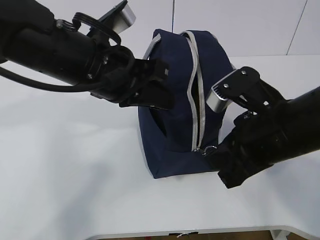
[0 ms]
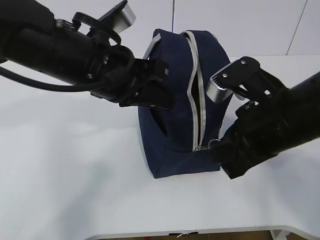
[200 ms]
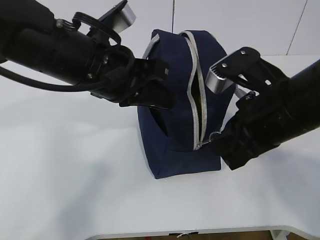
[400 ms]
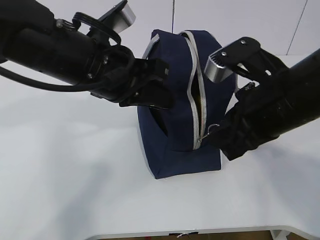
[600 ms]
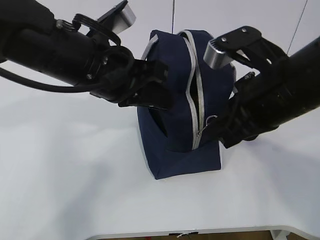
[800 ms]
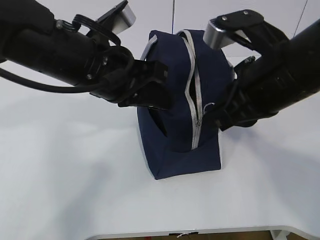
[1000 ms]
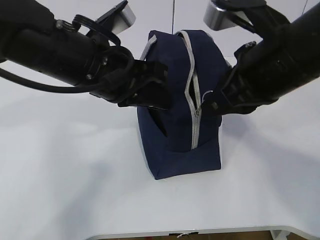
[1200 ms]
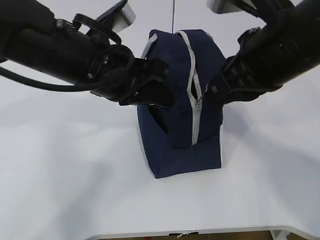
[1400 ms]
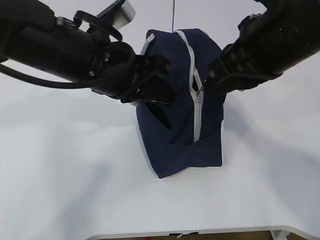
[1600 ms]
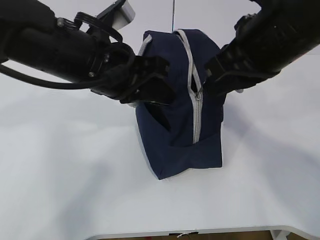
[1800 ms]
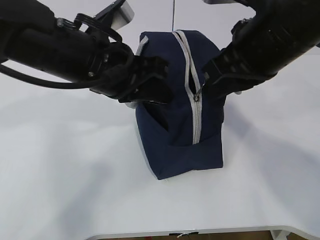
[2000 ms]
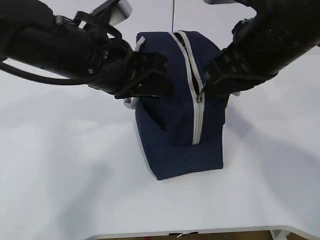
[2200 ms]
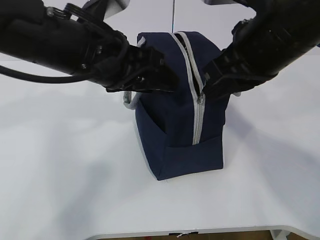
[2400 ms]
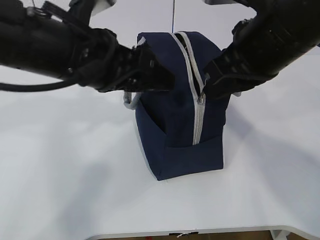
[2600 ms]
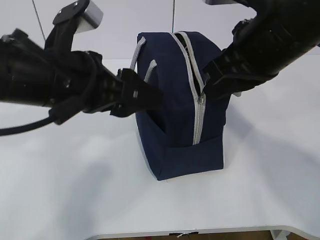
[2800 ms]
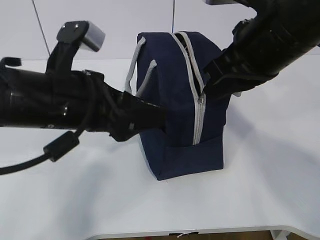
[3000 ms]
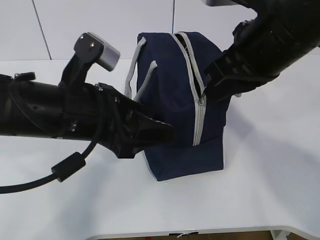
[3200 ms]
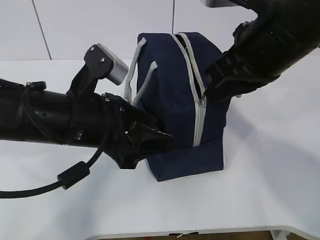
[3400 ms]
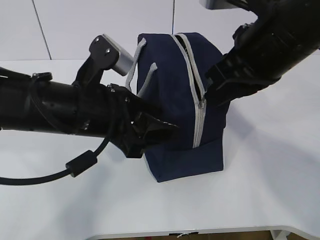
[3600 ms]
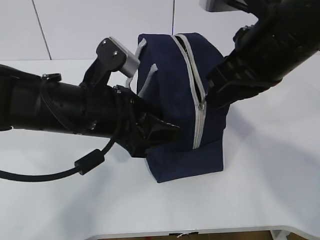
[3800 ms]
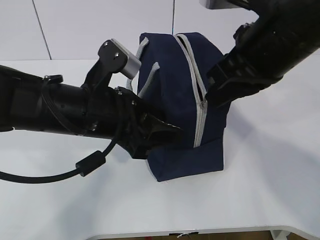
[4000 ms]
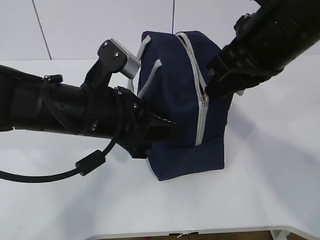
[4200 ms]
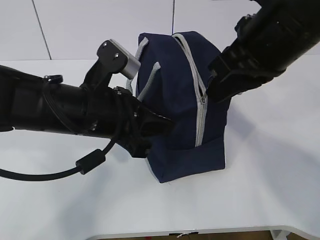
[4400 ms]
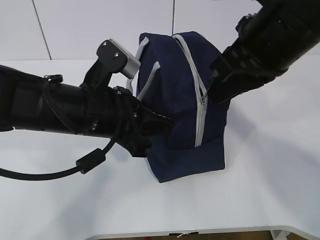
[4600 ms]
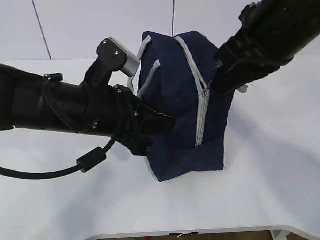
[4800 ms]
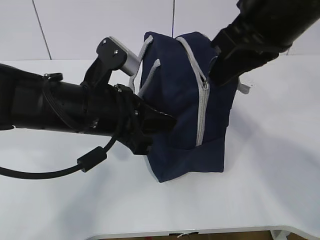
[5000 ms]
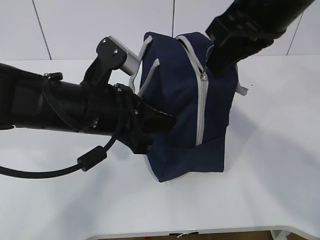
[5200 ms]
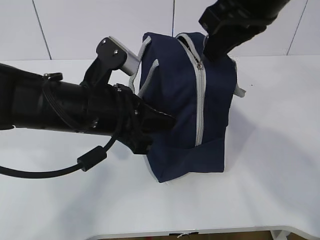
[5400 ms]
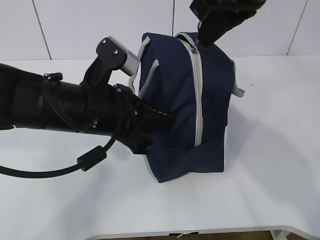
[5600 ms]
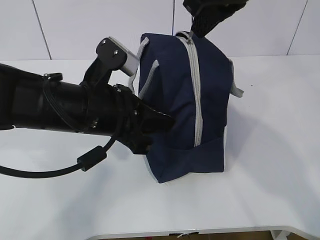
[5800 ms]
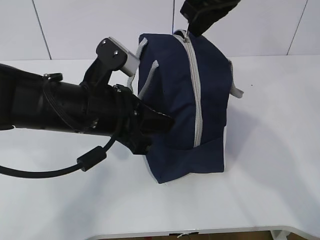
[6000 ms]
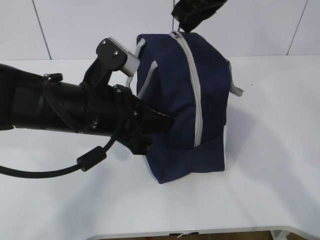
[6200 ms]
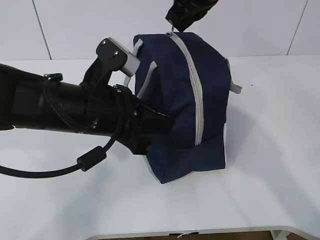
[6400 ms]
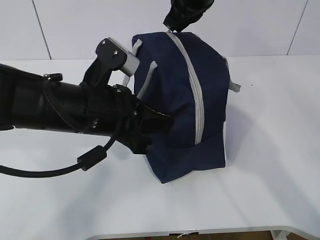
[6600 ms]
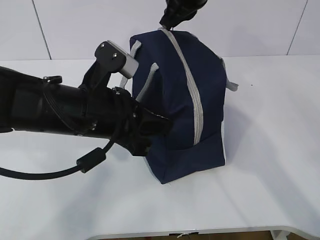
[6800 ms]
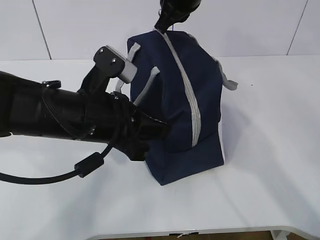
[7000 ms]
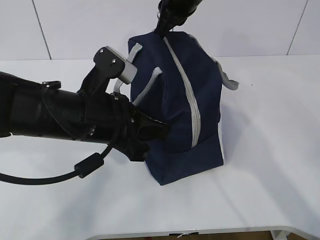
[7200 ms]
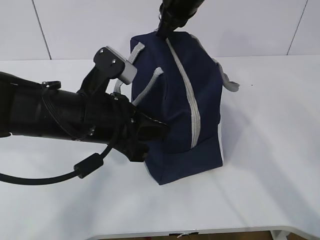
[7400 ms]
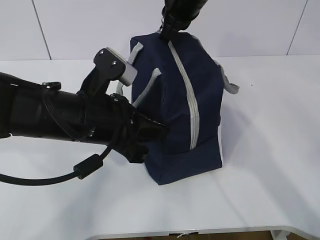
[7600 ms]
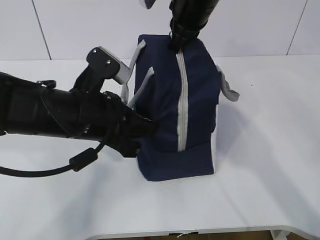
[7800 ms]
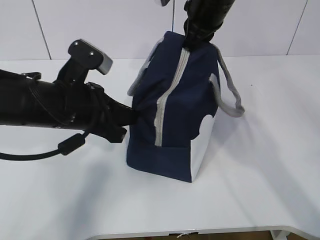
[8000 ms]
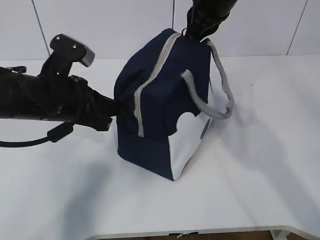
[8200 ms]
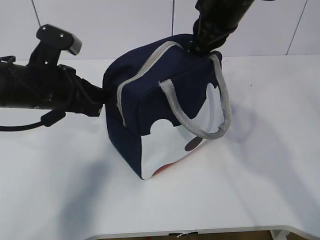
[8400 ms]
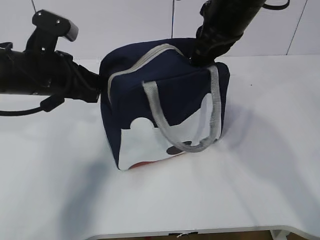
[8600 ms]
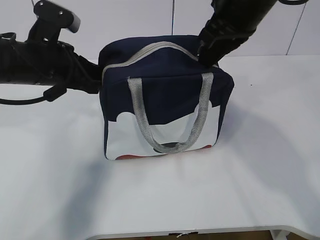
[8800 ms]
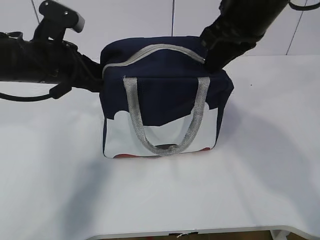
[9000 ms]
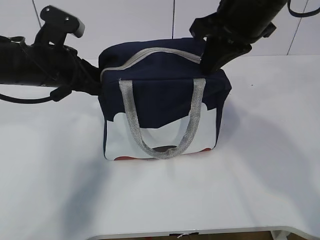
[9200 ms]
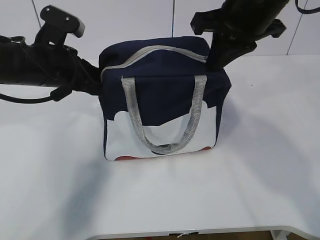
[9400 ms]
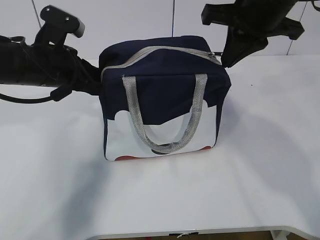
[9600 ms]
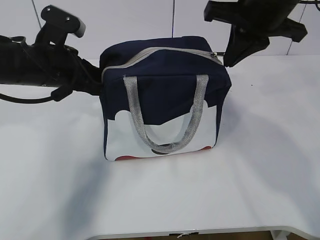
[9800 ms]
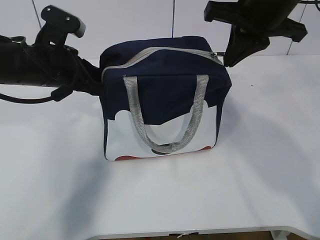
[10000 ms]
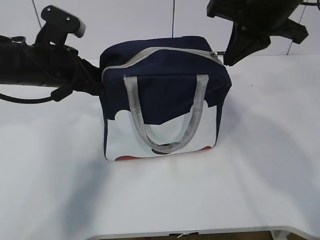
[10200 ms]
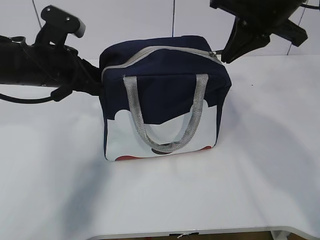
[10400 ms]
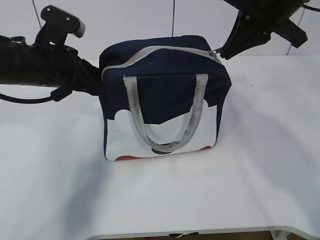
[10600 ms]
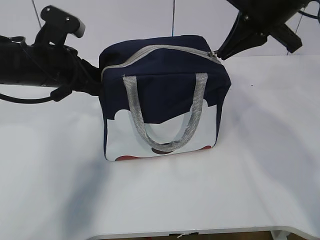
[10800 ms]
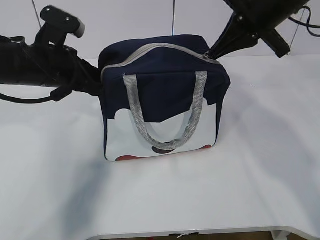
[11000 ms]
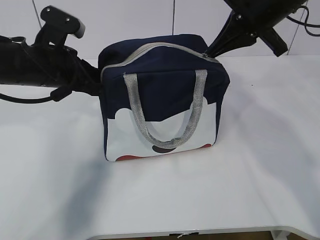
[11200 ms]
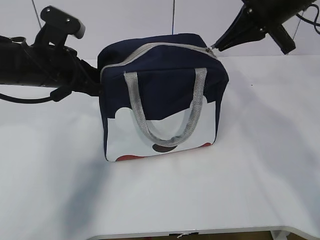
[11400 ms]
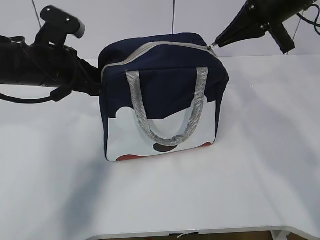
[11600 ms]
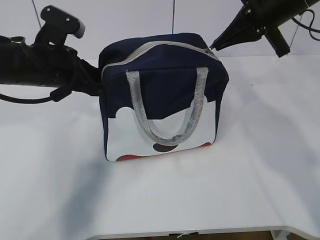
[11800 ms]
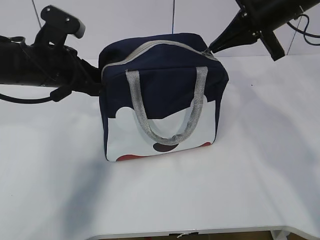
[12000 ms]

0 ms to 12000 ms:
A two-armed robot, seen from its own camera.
Step, 0 ms to 3800 ms: Pull the zipper with your right hand.
Step, 4000 ms to 4800 ms: Grab the lunch bag with your left hand.
0 ms to 1600 ms: The right gripper goes some 10 cm upward.
1600 ms to 3000 ms: The left gripper moves some 5 cm, and opens up.
3000 ms to 4400 ms: The left gripper closes its fingers.
4400 ms to 6000 ms: The right gripper travels forward by approximately 10 cm.
6000 ms to 7600 ms: The right gripper shifts approximately 10 cm forward and downward.
7600 ms to 9000 ms: The left gripper goes some 10 cm forward and to the left. The right gripper shifts roughly 10 cm backward and to the right.
10400 ms to 12000 ms: The right gripper moves about 5 cm.

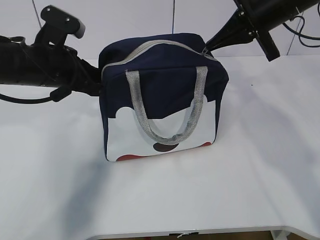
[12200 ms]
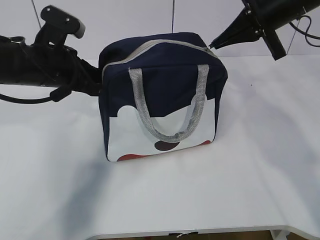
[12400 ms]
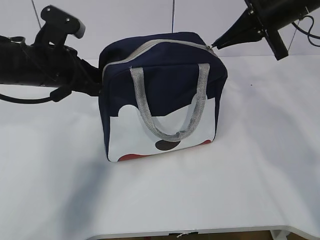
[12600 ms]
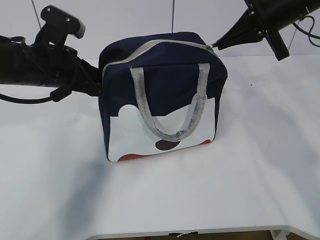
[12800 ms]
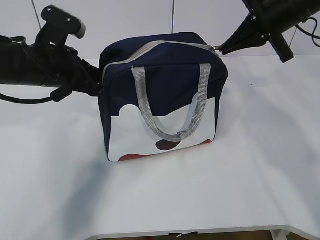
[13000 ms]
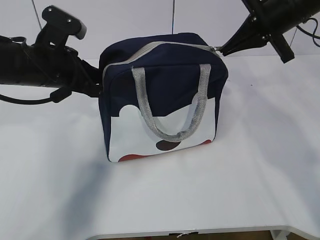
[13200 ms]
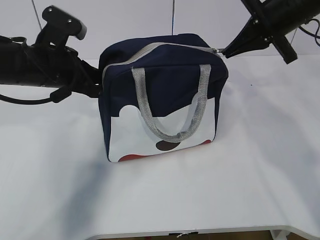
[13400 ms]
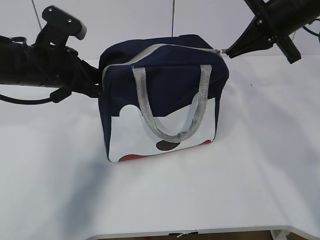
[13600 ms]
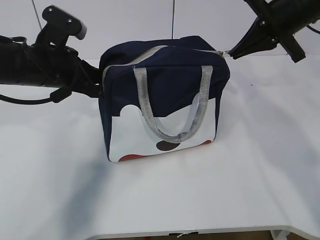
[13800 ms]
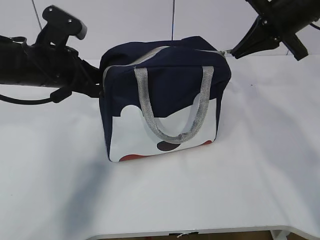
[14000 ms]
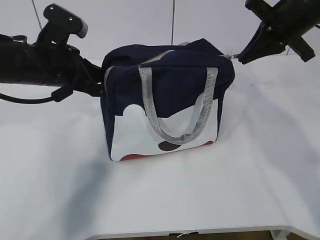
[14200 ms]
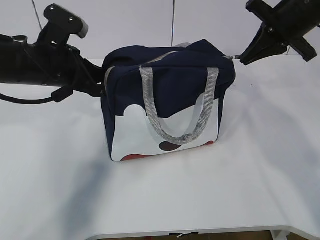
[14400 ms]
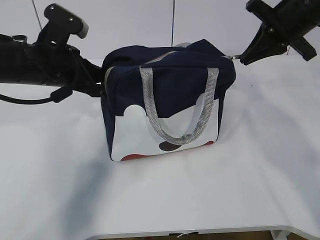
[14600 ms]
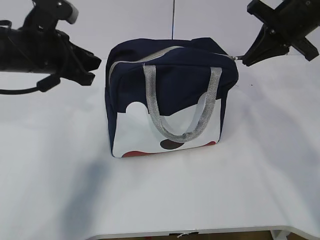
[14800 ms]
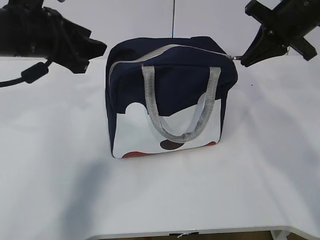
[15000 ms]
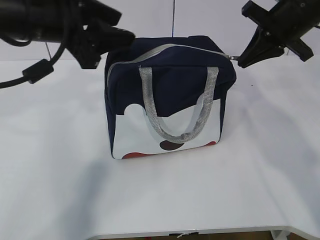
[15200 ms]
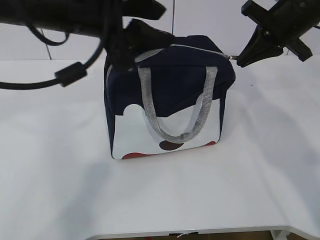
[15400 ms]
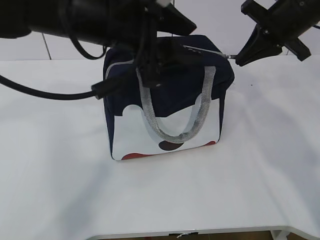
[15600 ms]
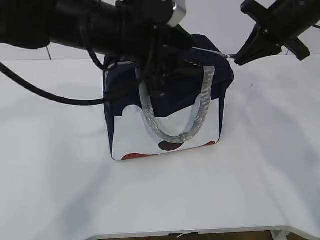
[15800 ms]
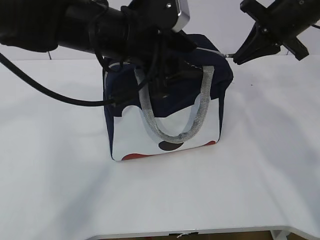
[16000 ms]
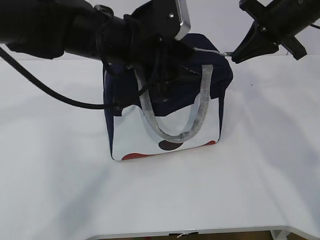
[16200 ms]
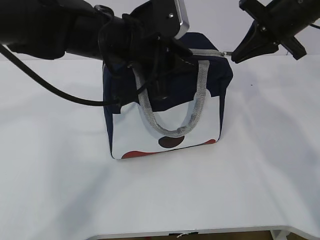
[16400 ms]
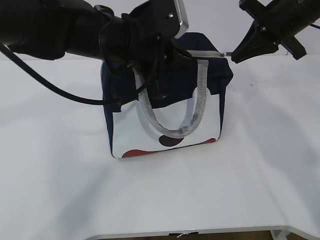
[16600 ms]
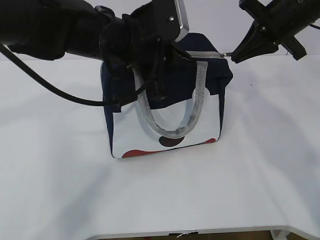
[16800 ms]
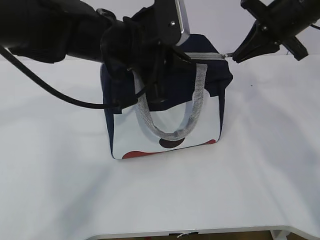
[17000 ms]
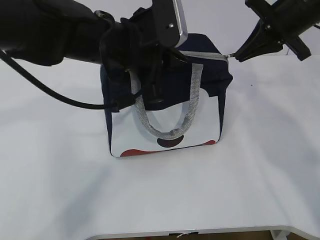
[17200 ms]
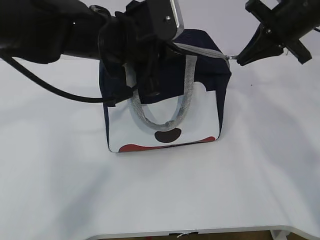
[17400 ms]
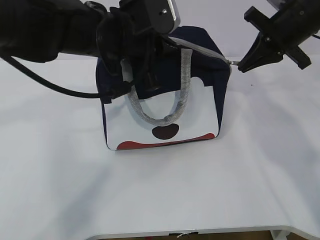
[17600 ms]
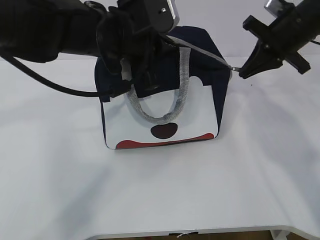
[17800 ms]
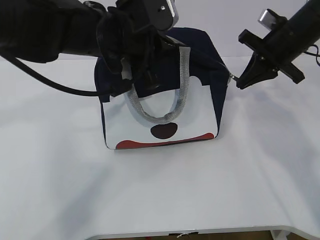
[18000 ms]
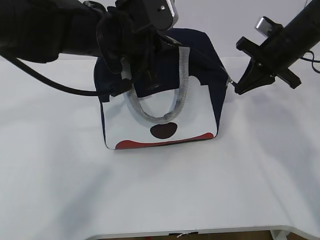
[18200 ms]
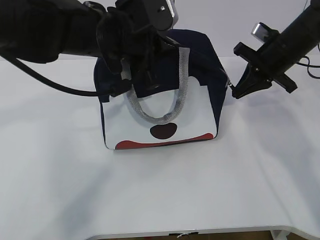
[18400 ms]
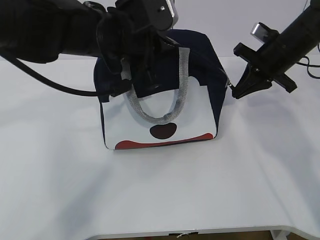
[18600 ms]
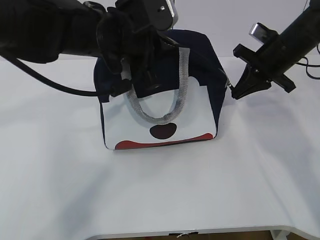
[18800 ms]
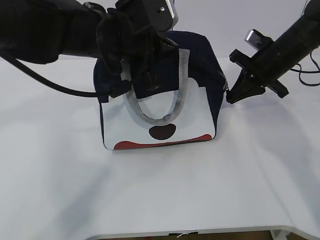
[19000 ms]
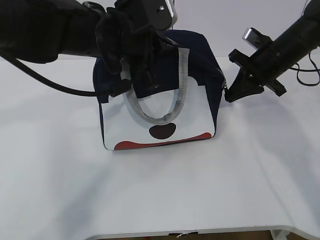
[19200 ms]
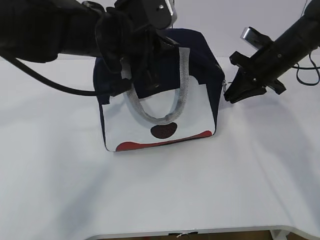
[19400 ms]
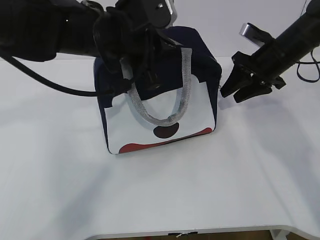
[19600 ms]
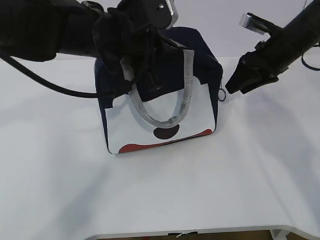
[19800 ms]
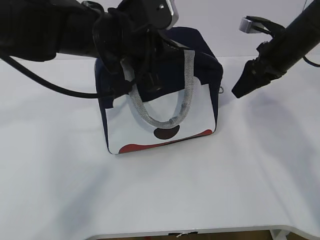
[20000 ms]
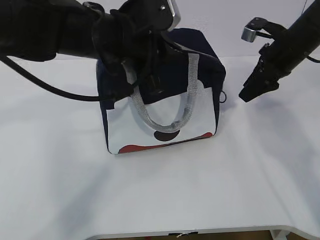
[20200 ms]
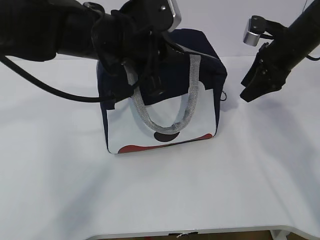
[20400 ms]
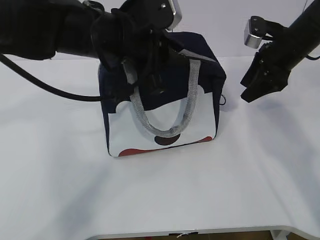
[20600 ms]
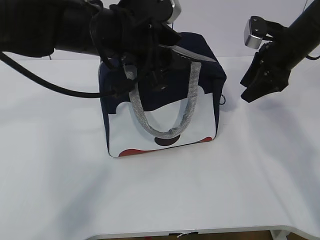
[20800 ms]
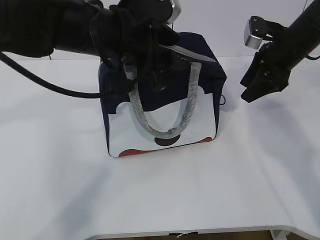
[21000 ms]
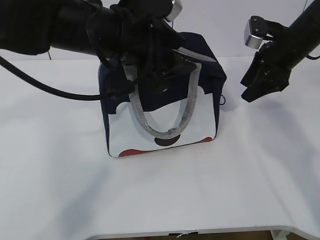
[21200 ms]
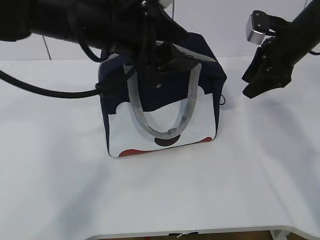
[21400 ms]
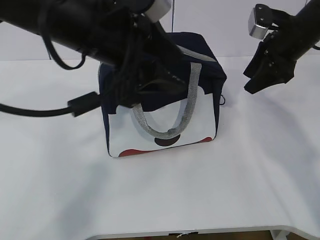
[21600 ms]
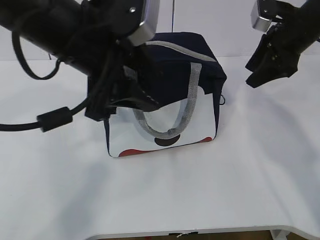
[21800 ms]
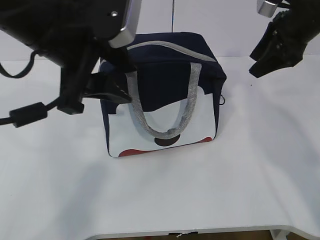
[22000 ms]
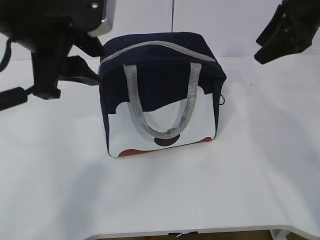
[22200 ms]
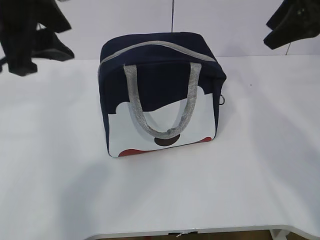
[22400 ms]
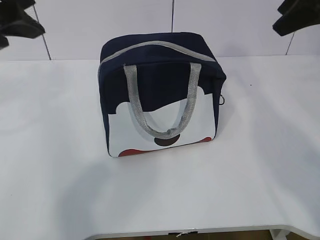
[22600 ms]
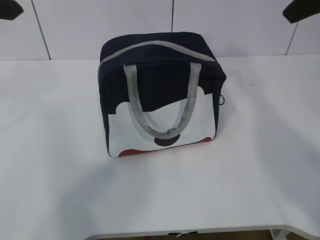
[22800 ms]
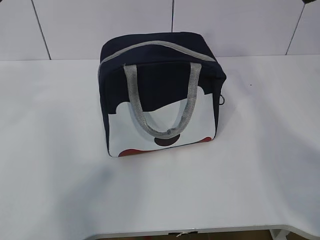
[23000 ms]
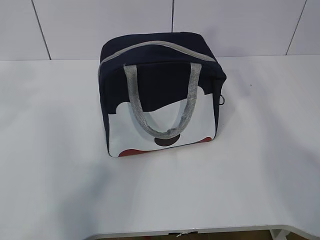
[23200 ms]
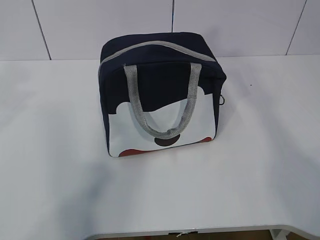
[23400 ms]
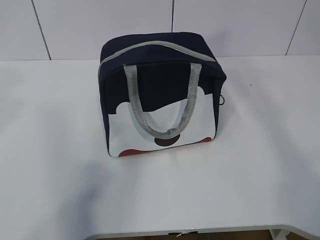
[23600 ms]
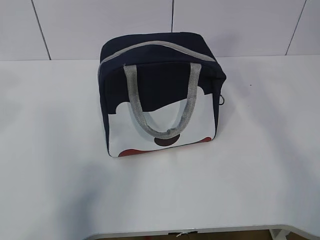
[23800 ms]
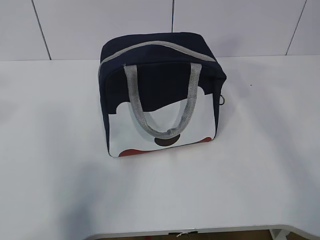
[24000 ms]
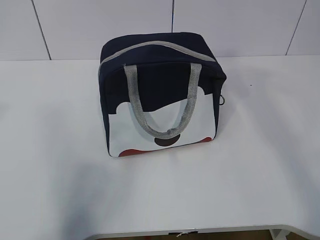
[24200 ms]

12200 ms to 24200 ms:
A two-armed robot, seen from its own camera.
12200 ms to 13800 ms: The grippers stay close to where they were, moving slightly.
13800 ms to 15200 ms: The left gripper travels upward by about 10 cm, and opens.
15200 ms to 16600 ms: The left gripper travels to the right by approximately 10 cm, and closes its fingers.
16600 ms to 18200 ms: The right gripper heads downward, covering roughly 5 cm.
18200 ms to 19800 ms: The right gripper opens.
19800 ms to 21200 ms: The left gripper opens.
21200 ms to 22600 ms: The right gripper shifts some 15 cm upward and backward; the left gripper goes approximately 15 cm to the left and upward.
22600 ms to 24200 ms: The right gripper moves backward and upward, some 25 cm. The left gripper shifts roughly 15 cm backward, to the left and upward.
